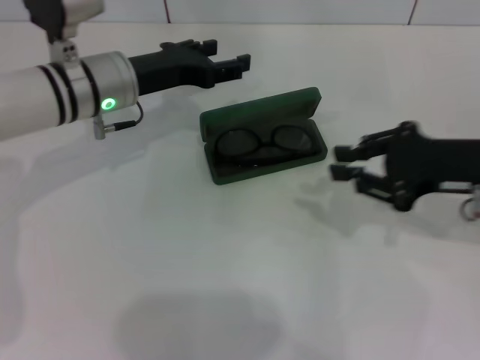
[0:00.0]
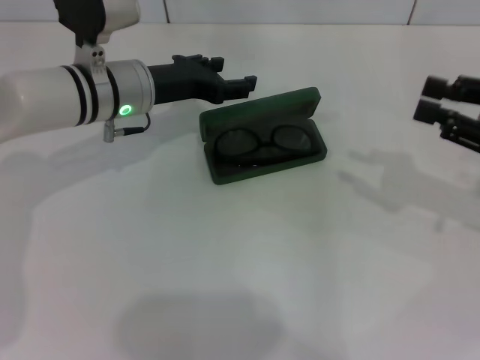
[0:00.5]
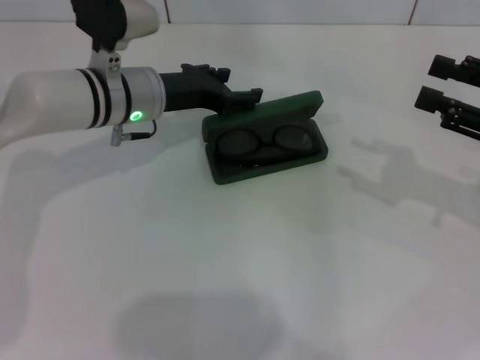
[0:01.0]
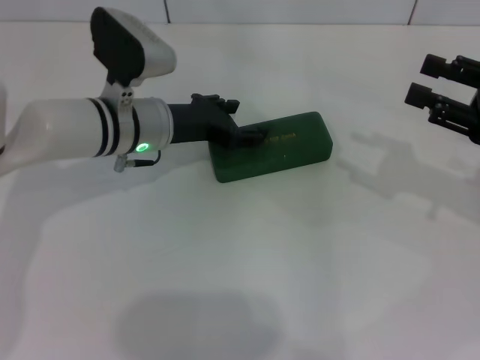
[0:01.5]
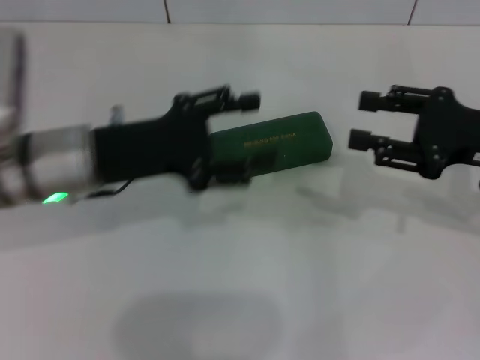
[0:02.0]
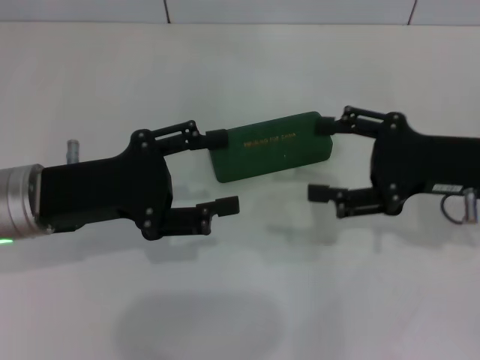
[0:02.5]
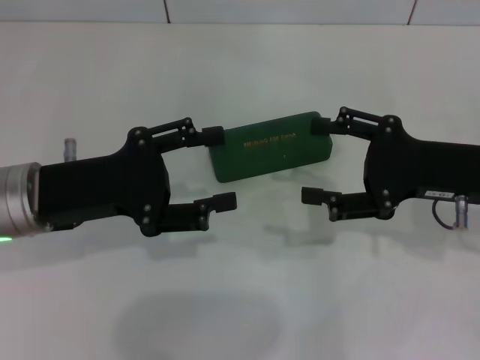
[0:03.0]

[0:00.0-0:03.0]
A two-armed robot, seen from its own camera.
0:00.0 to 0:01.5: The right gripper goes approximately 5 cm to the right, and opens up.
0:01.5 to 0:03.0: The left gripper goes about 15 cm backward and to the left; the right gripper travels to the left by about 10 cm, and opens up.

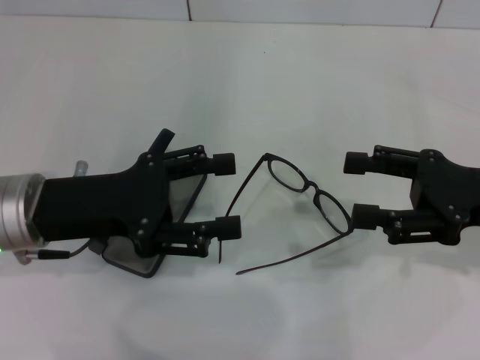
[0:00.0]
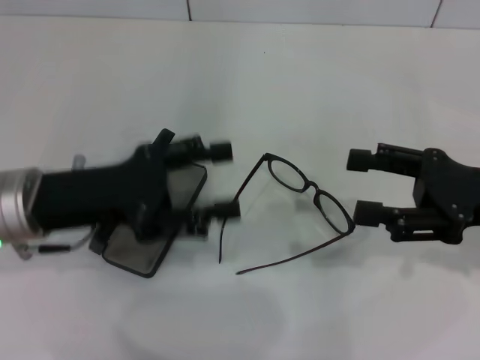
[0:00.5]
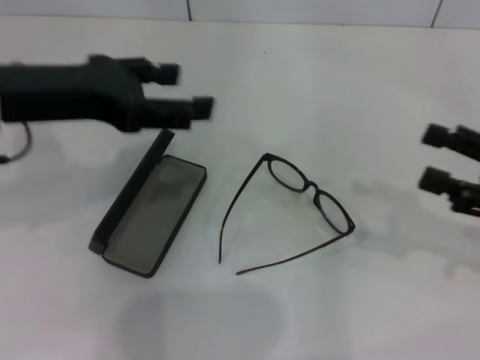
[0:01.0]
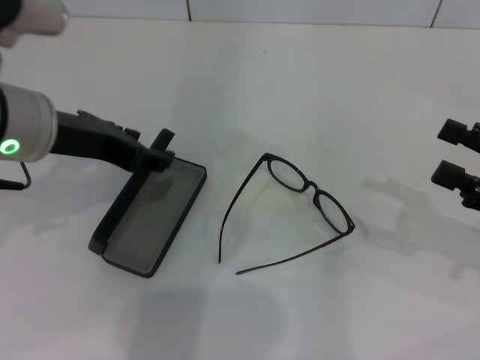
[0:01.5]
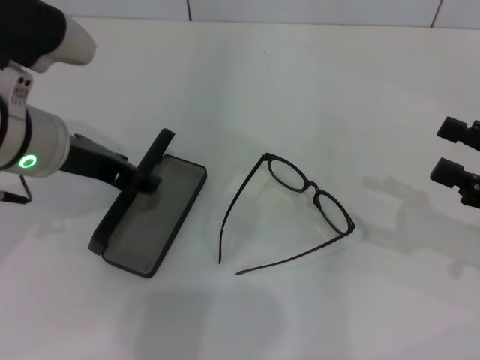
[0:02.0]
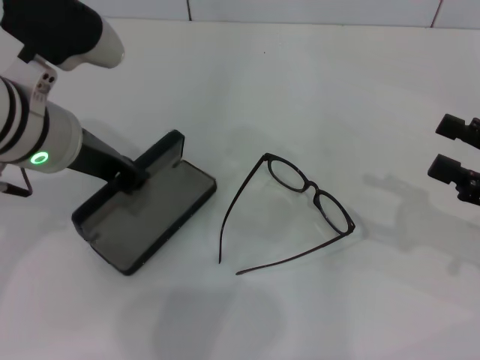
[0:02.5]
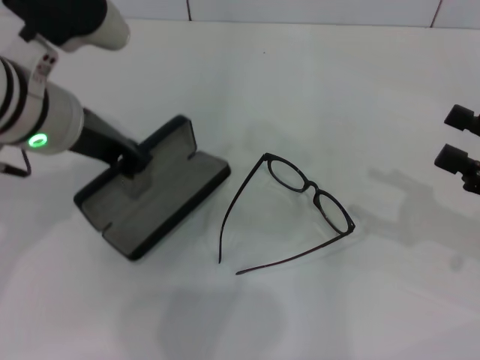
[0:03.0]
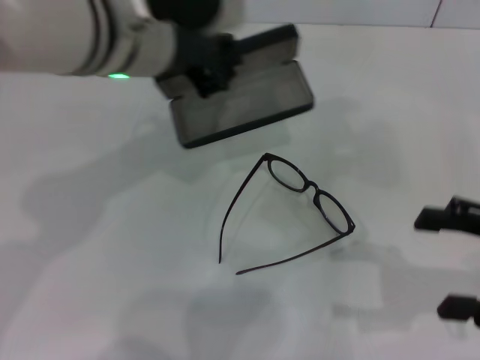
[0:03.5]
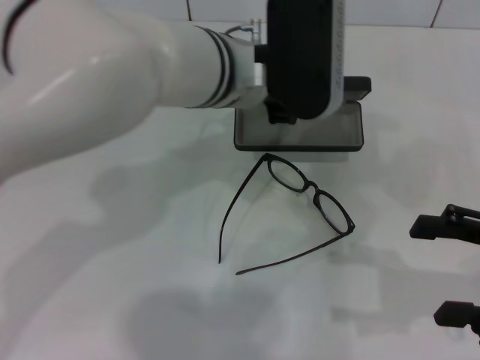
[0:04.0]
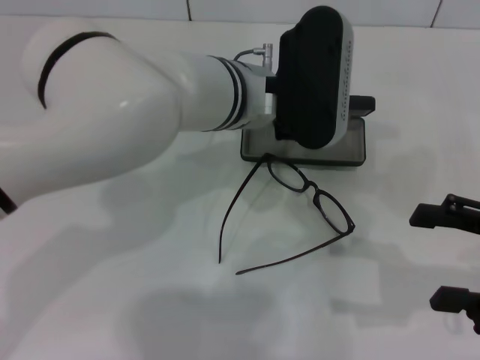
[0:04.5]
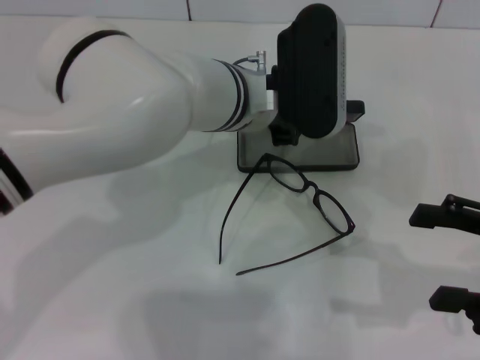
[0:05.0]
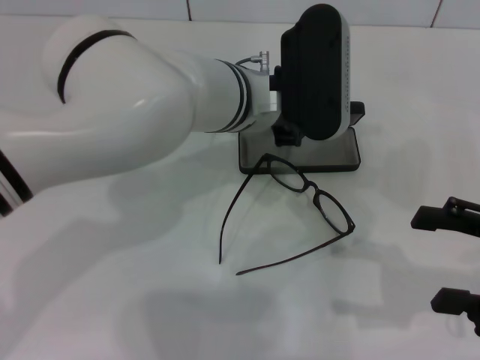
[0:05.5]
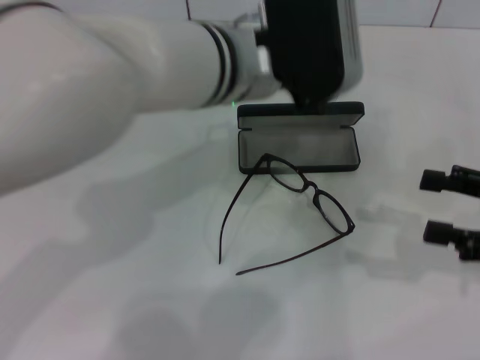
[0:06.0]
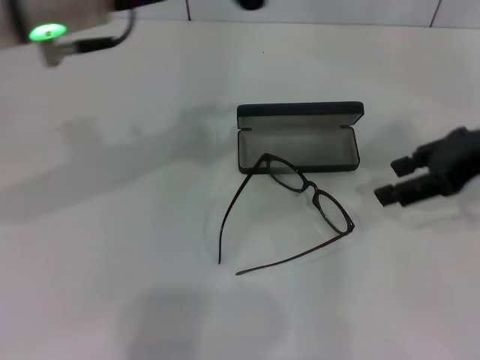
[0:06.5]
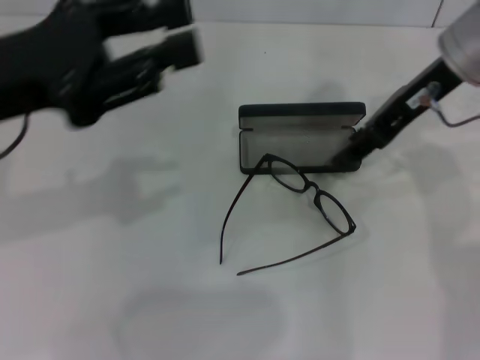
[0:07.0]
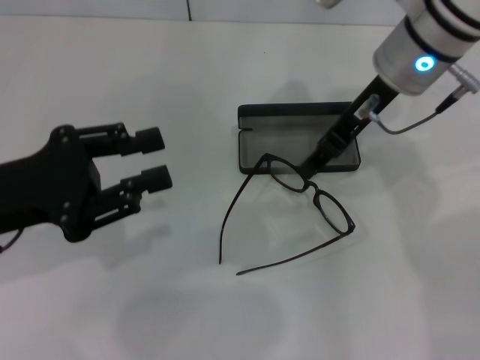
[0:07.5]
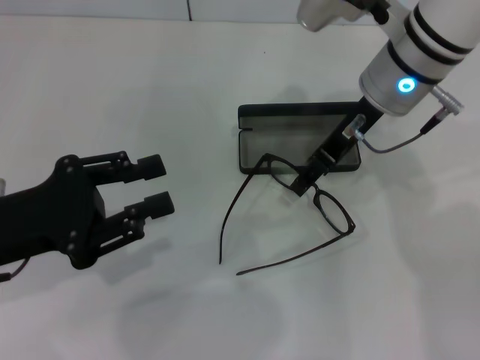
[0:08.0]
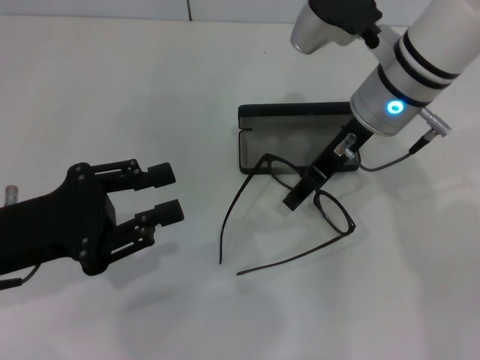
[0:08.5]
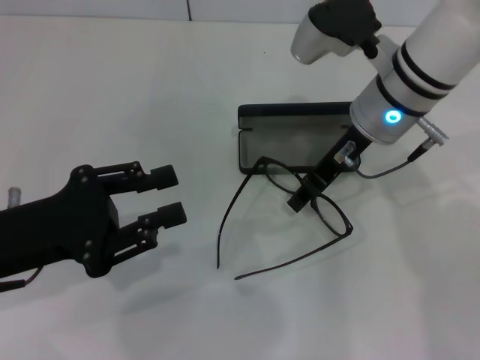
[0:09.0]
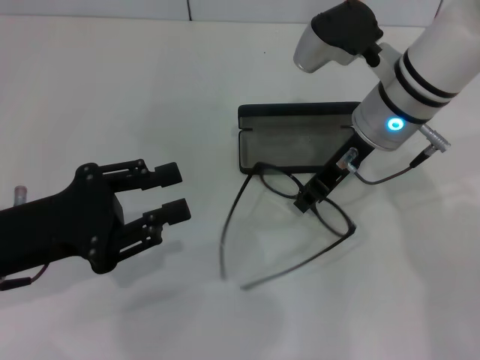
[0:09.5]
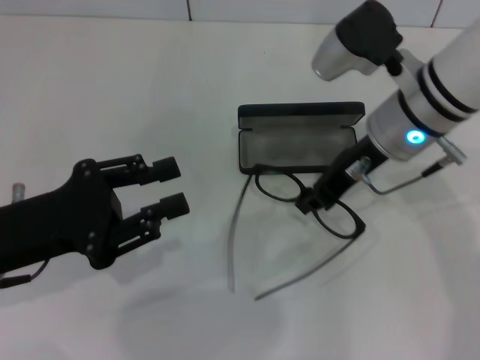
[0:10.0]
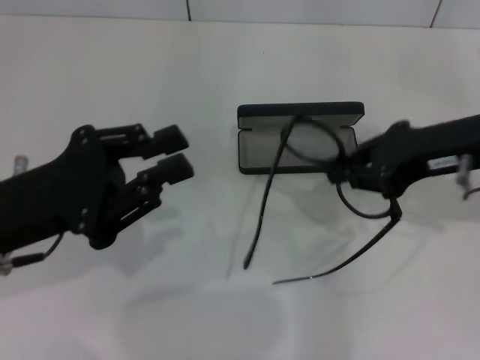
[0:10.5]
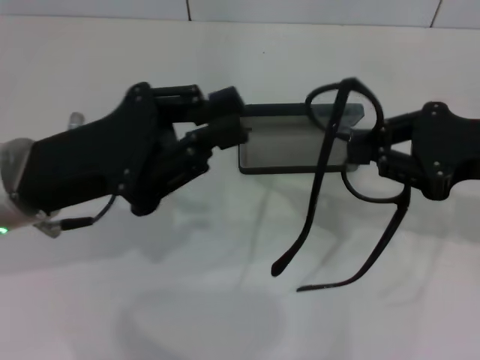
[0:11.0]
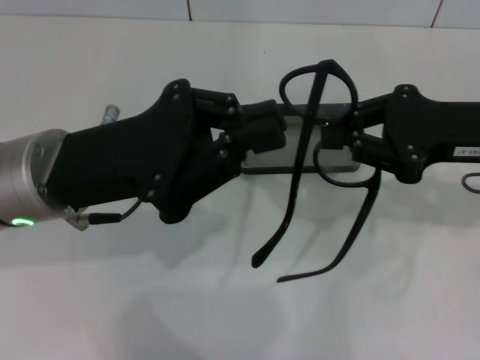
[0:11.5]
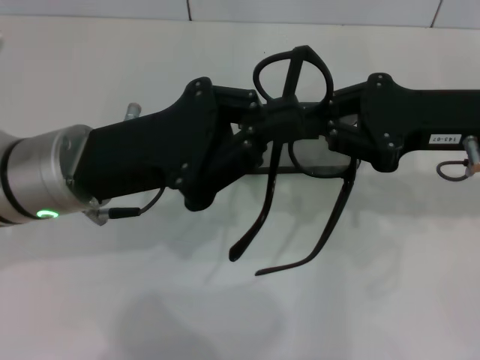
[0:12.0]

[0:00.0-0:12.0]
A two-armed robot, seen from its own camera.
Step, 0:00.0 to 0:02.5: Grab the glasses case with your left hand.
Step, 0:03.0 to 0:05.0: Place the glasses case in the center of the table with your left hand.
Step, 0:05.5 to 0:09.5: Grab the eyeglass frame with your right hand.
0:00.0 to 0:02.0: The left gripper moves upward, some 5 cm; the right gripper is displaced to the right by roughly 5 cm.
0:02.0 to 0:04.0: The left gripper heads to the right, covering about 15 cm, and closes.
0:04.0 to 0:06.0: There are only small adjustments of the grippers.
0:06.0 to 0:08.0: The left gripper travels to the left, backward and downward by approximately 30 cm, while the right gripper is displaced to the left and forward by some 25 cm, and closes up.
0:08.0 to 0:10.0: The right gripper closes.
0:10.0 to 0:12.0: The left gripper goes some 10 cm to the right and forward, while the right gripper goes some 10 cm to the right.

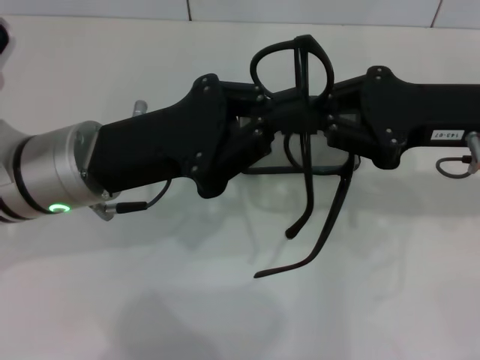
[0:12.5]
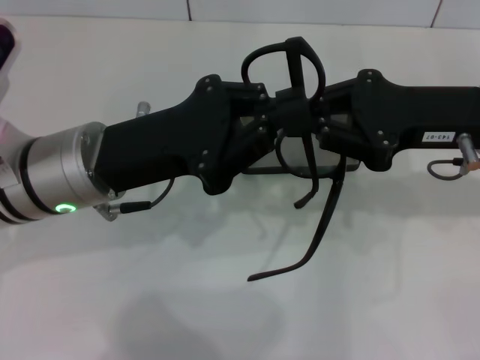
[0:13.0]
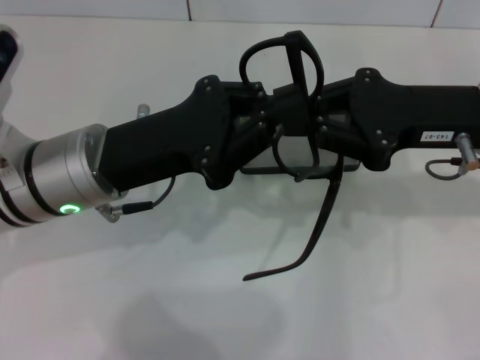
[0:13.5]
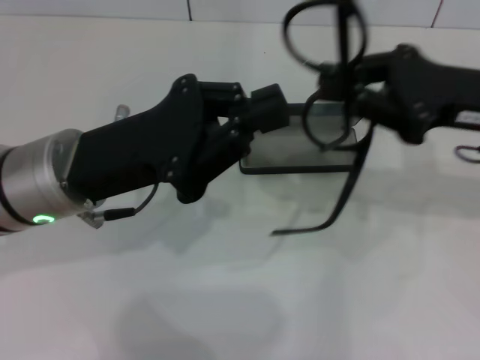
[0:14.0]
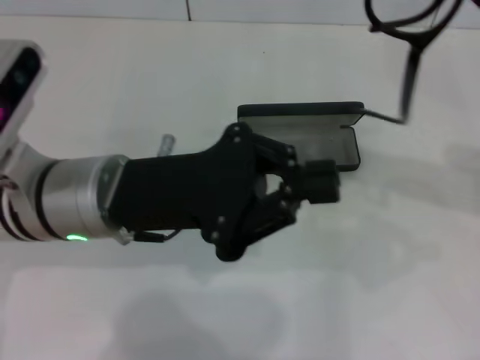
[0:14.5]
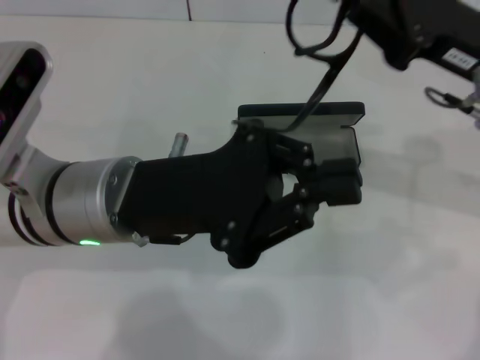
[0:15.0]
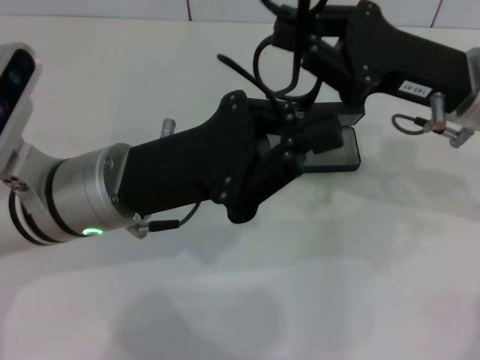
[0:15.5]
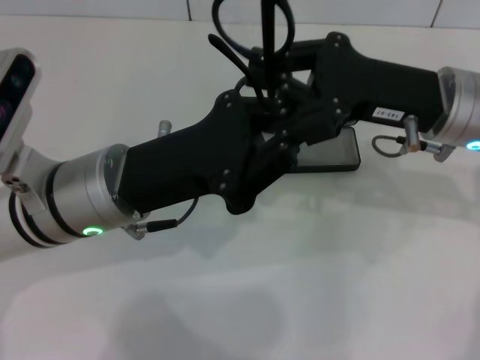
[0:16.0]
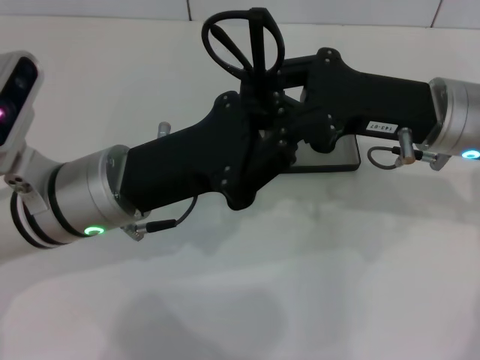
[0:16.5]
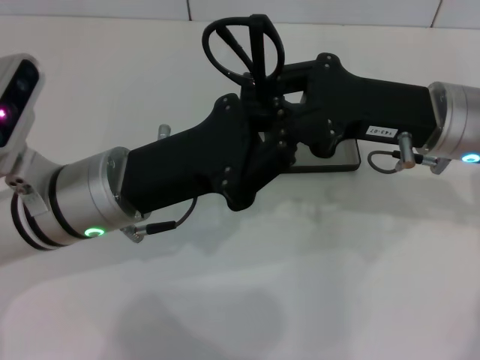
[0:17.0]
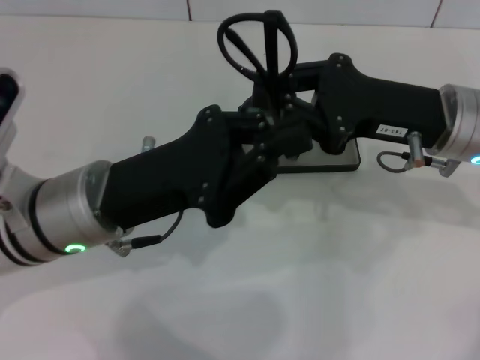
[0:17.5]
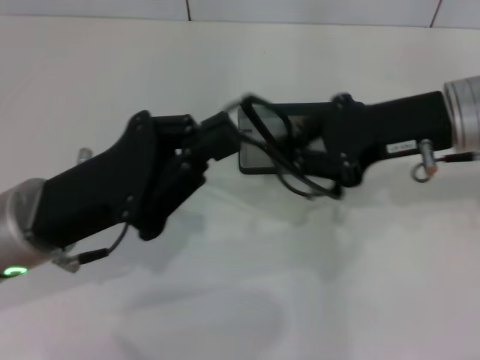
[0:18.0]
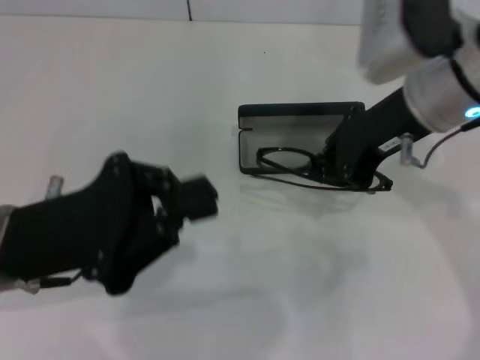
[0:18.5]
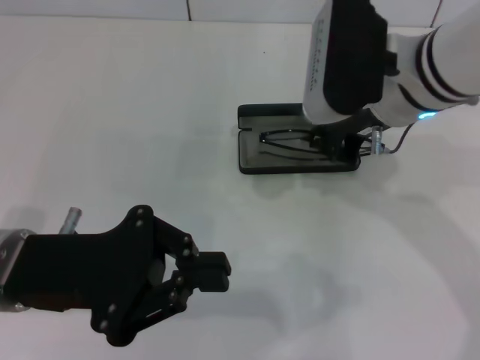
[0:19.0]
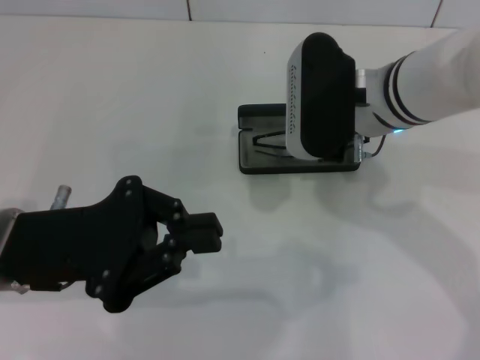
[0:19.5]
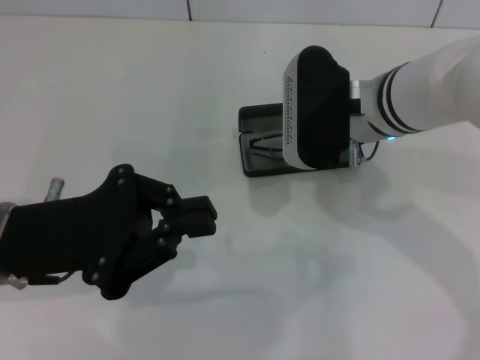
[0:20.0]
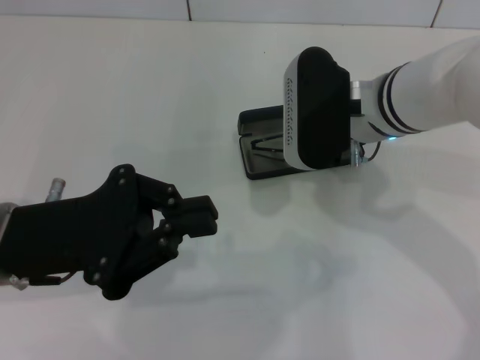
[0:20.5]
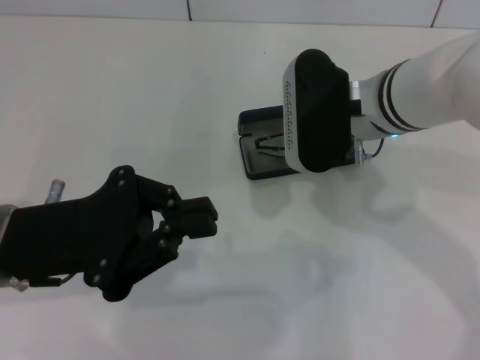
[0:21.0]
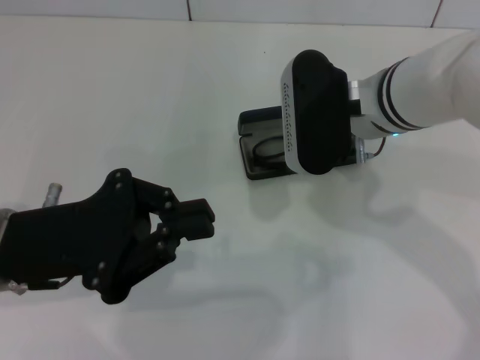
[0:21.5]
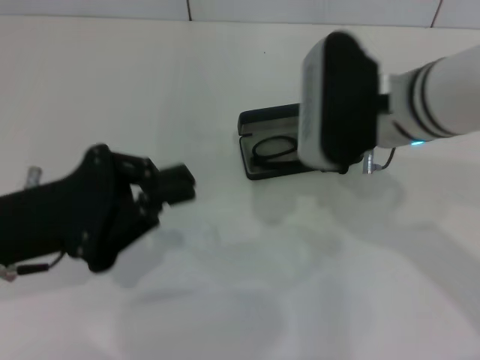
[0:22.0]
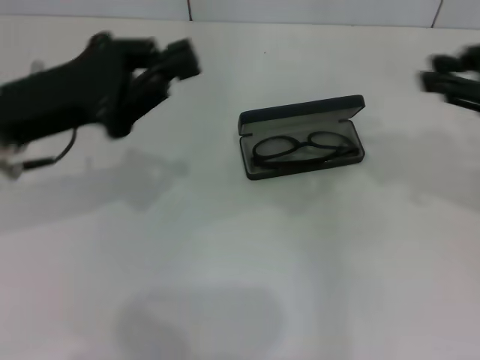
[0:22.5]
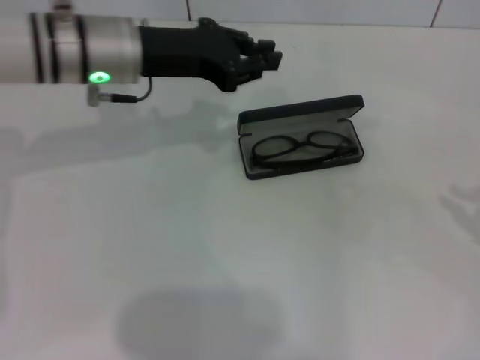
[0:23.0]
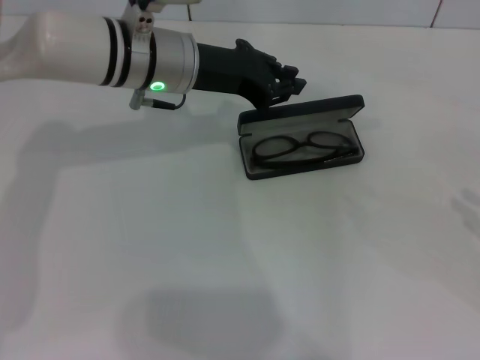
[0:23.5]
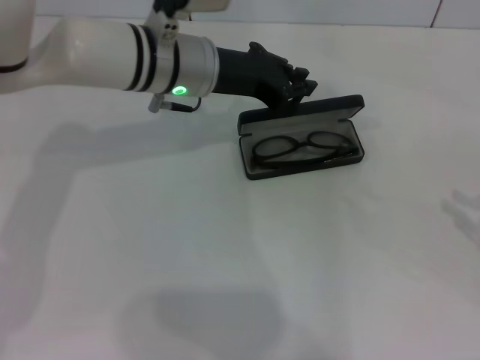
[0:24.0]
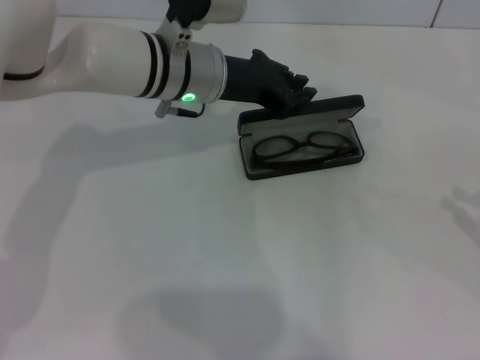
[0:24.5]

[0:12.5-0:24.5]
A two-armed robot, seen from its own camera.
Step, 0:12.5 to 0:17.0: Fold the frame with your left hand.
Step, 0:17.5 to 0:21.5: Put the glasses into the case with your right hand.
0:12.5 to 0:14.5: The right gripper shifts by some 5 cm.
0:14.5 to 0:16.5: The right gripper travels to the left and downward by some 10 cm.
0:16.5 to 0:18.5: The left gripper is displaced to the left by approximately 5 cm. The right gripper heads upward, covering some 5 cm.
0:18.5 to 0:20.5: The right gripper is displaced downward by about 5 cm.
0:20.5 to 0:22.5: The left gripper shifts some 5 cm forward. The right gripper moves to the right and upward, approximately 20 cm.
0:22.5 to 0:24.5: The left gripper shifts roughly 20 cm to the right and forward. The right gripper shifts roughly 20 cm downward, to the right and backward.
